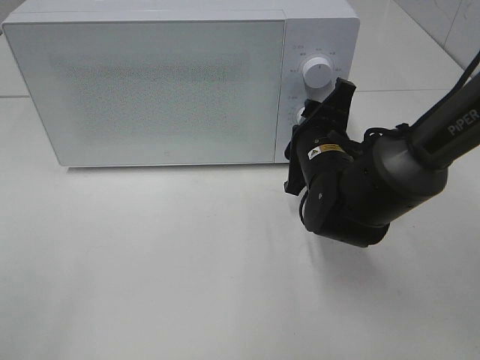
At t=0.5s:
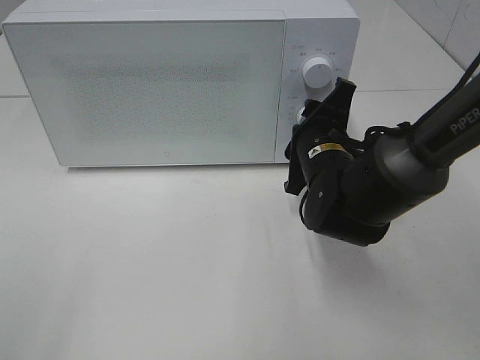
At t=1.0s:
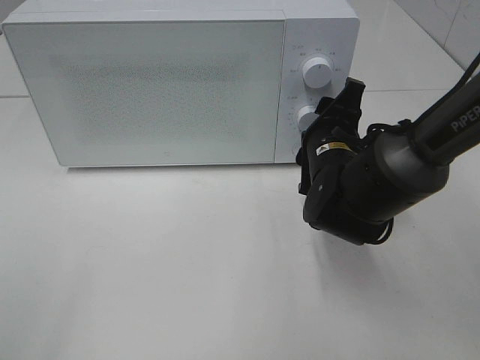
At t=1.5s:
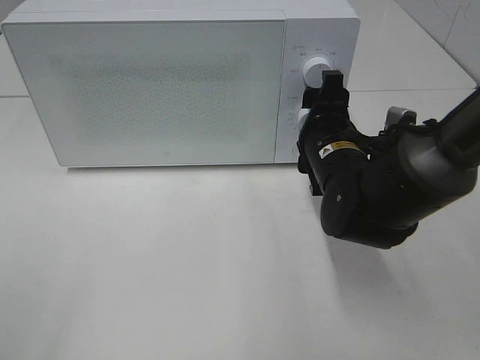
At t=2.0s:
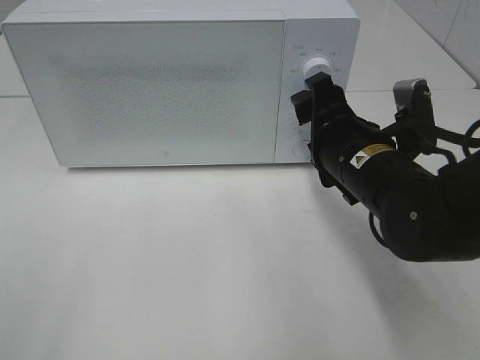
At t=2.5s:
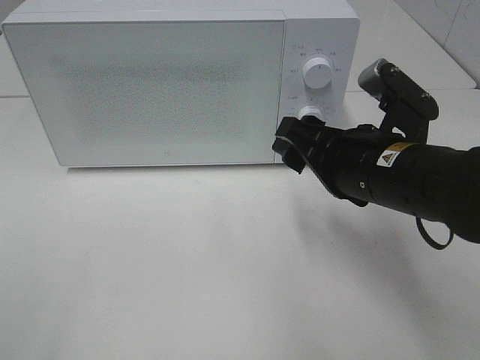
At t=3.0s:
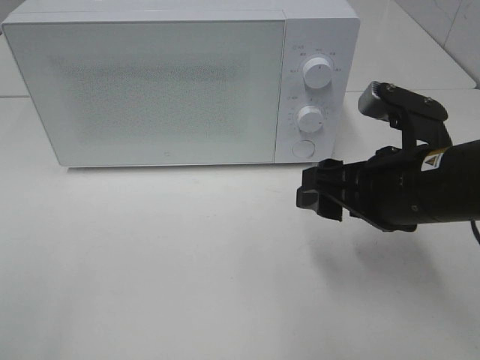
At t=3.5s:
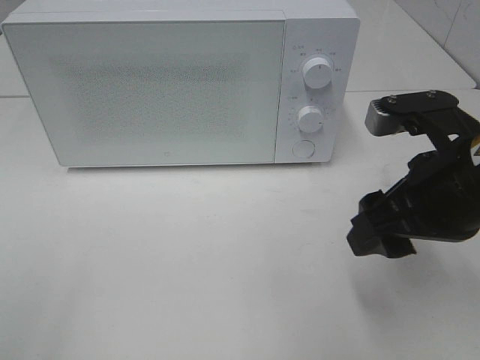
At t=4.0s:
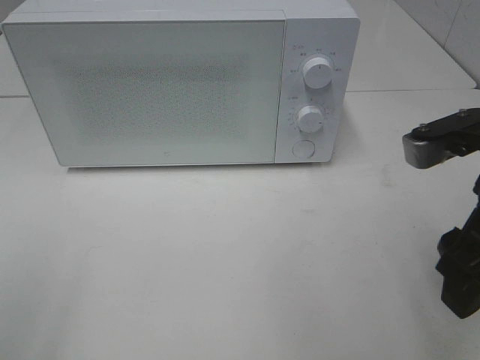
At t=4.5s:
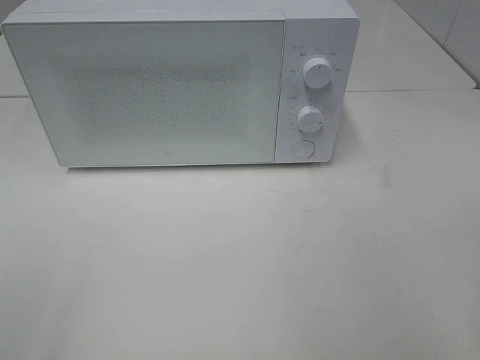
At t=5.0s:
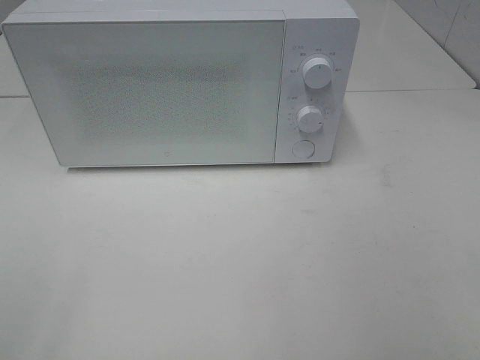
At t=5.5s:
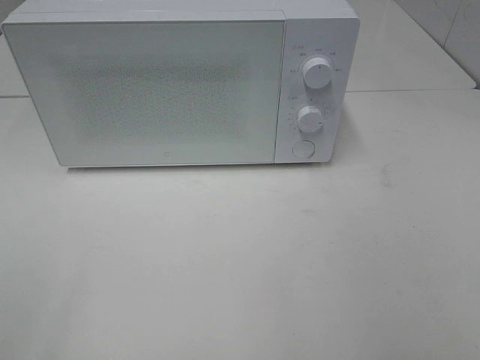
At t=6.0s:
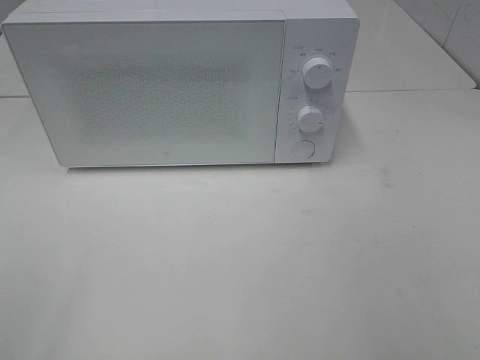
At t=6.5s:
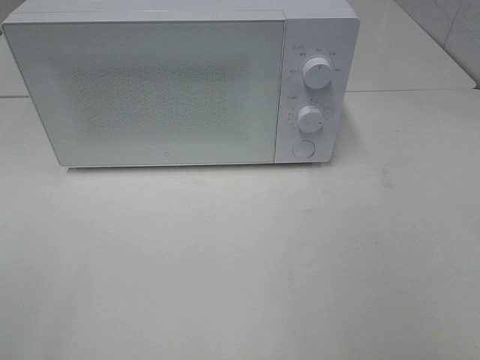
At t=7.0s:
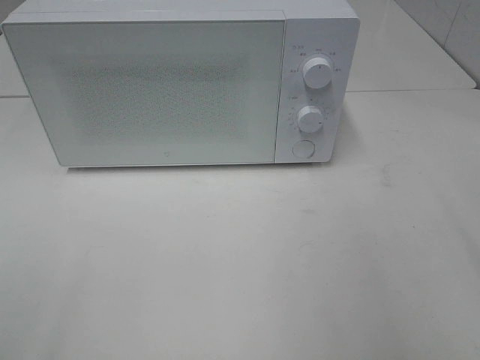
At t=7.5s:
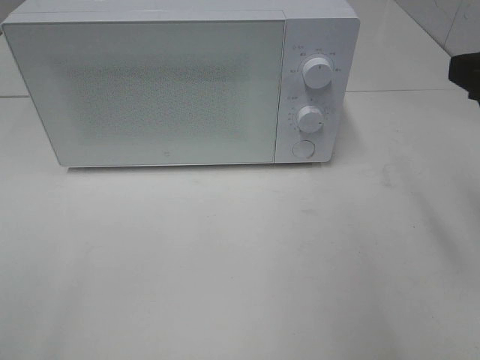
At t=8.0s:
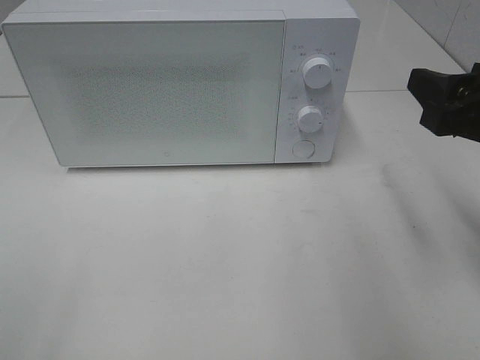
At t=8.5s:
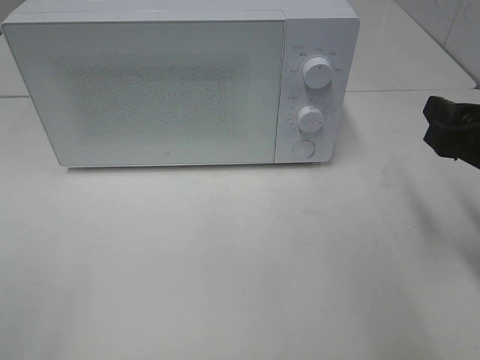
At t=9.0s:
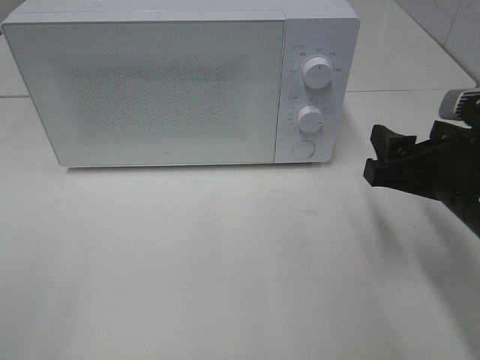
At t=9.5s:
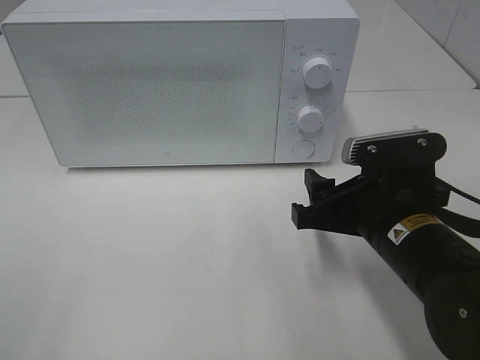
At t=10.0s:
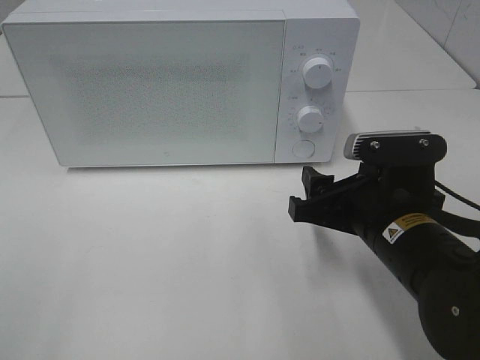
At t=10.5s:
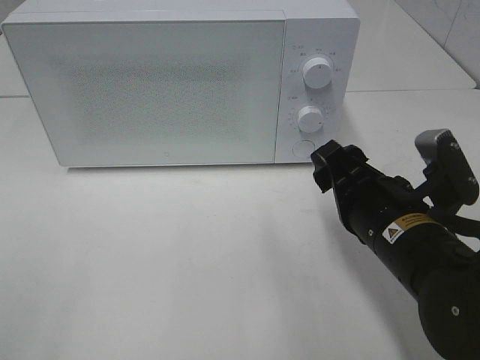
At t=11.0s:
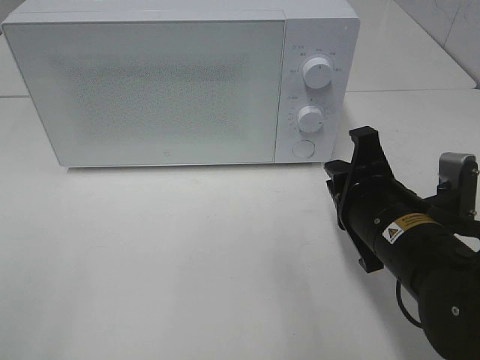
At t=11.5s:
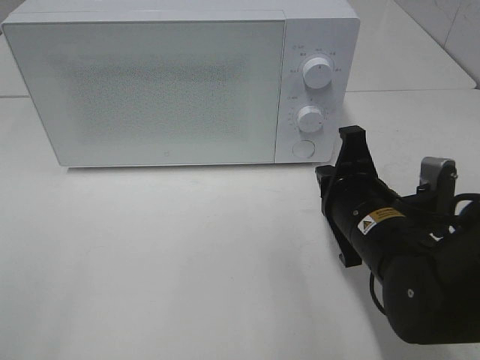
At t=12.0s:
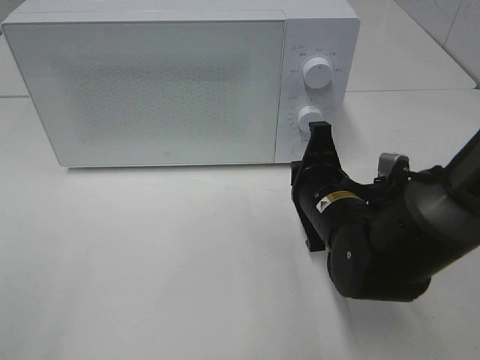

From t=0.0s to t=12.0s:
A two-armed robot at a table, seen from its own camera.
Task of the whole recording: Heat the burger.
From t=0.0s to t=2.0s: The right gripper heads backward, covering some 5 cm.
From t=2.0s to t=4.0s: The right gripper goes about 15 cm backward, upward and to the right.
From t=4.0s to t=6.0s: The right gripper is displaced backward and to the right by roughly 20 cm.
From t=6.0s to t=8.0s: The right gripper moves forward, roughly 20 cm.
From t=8.0s to t=10.0s: The right gripper moves downward and to the left, some 15 cm.
From t=10.0s to t=12.0s: The right gripper goes roughly 5 cm forward, and closes.

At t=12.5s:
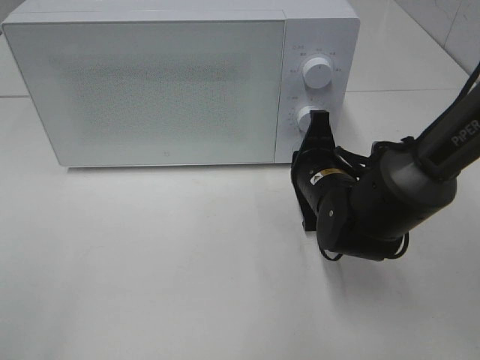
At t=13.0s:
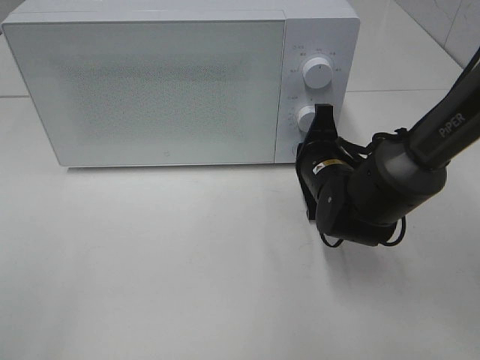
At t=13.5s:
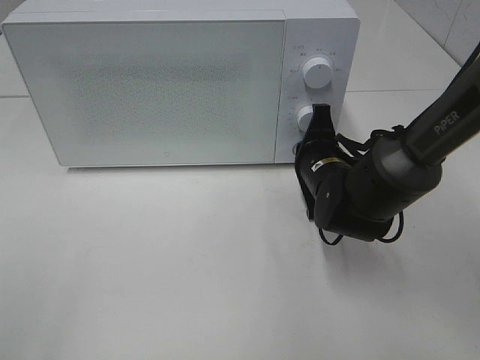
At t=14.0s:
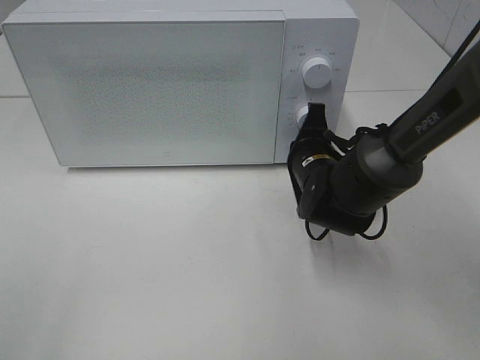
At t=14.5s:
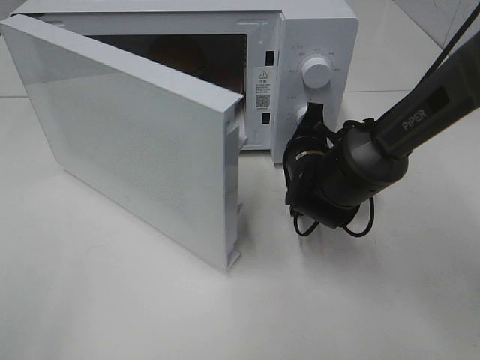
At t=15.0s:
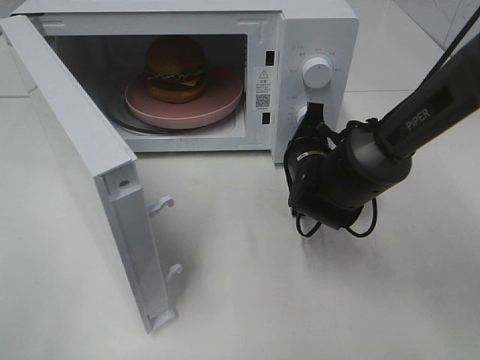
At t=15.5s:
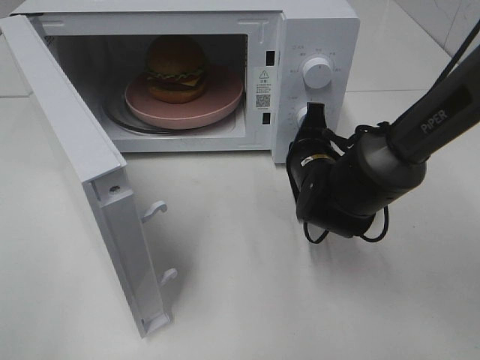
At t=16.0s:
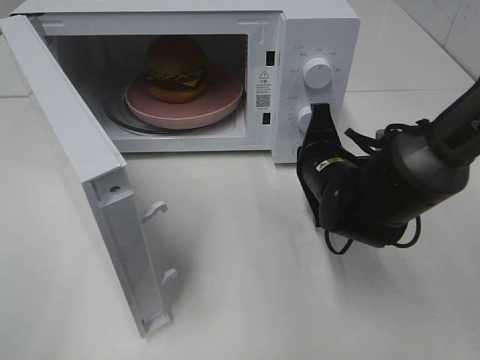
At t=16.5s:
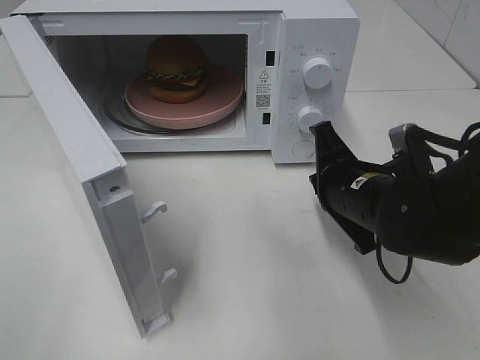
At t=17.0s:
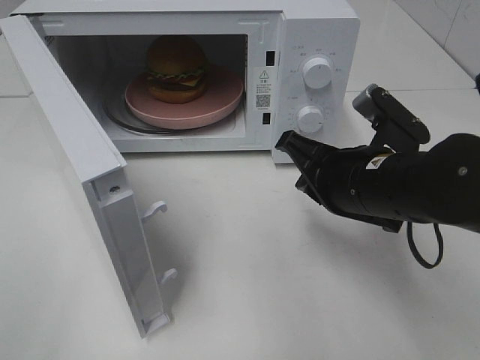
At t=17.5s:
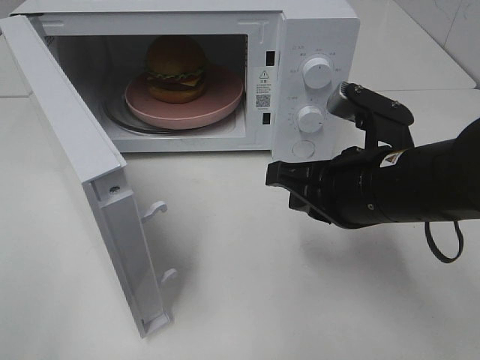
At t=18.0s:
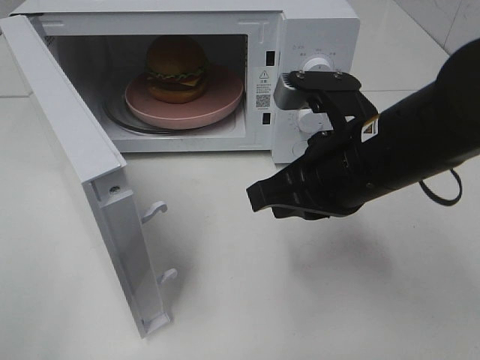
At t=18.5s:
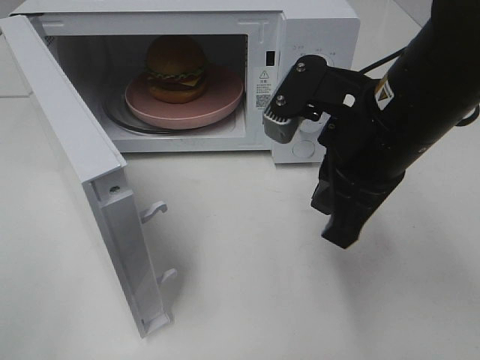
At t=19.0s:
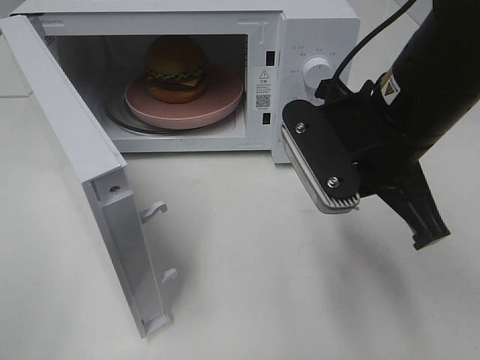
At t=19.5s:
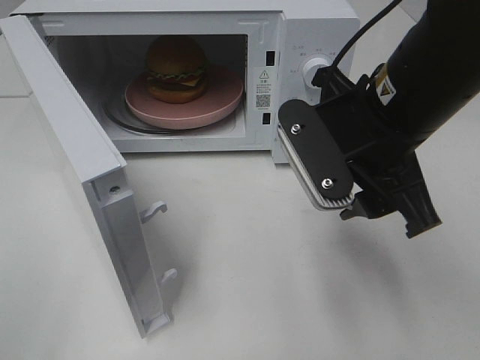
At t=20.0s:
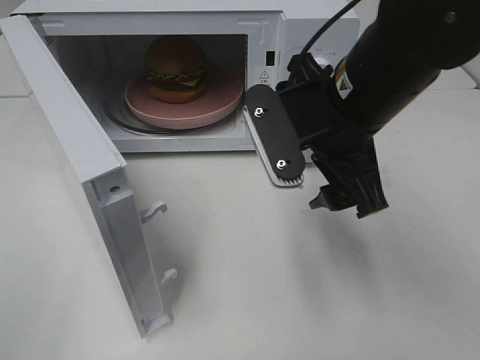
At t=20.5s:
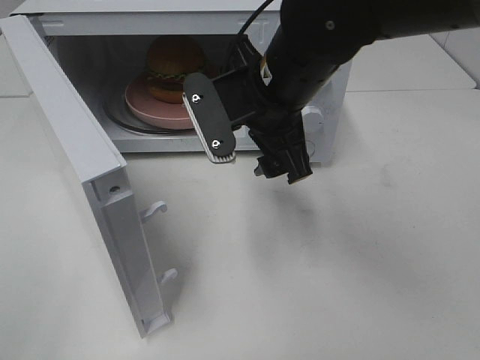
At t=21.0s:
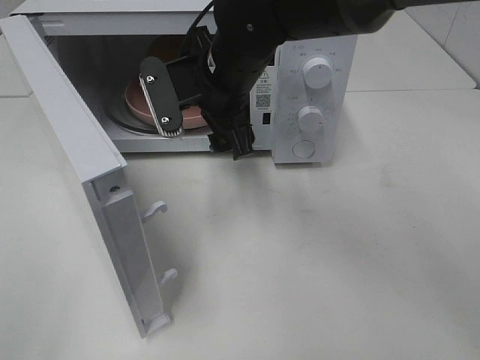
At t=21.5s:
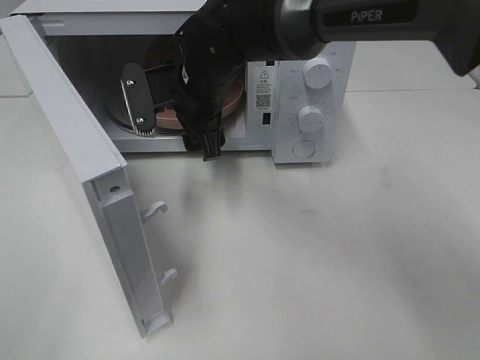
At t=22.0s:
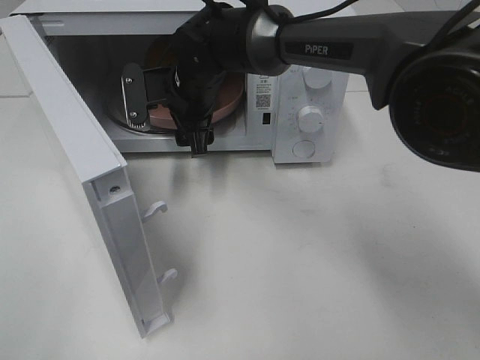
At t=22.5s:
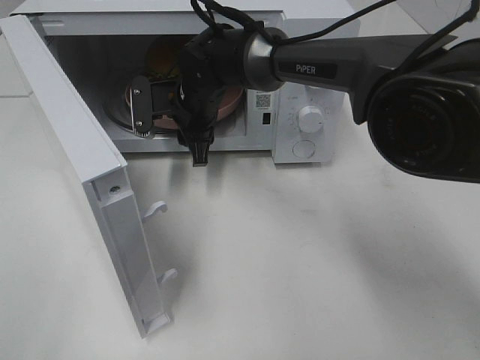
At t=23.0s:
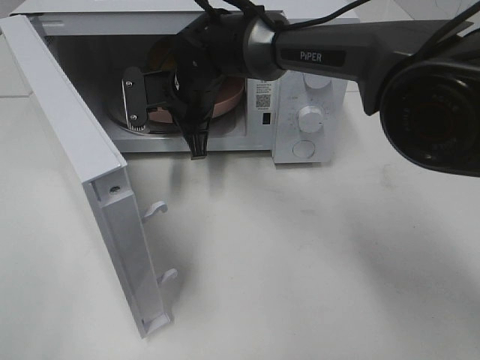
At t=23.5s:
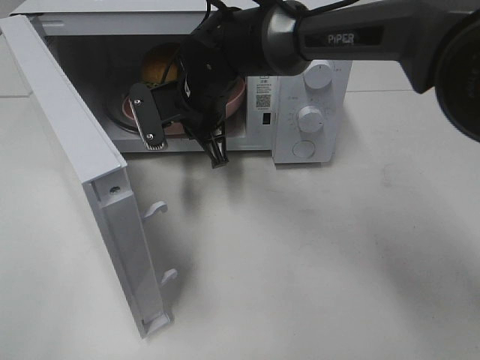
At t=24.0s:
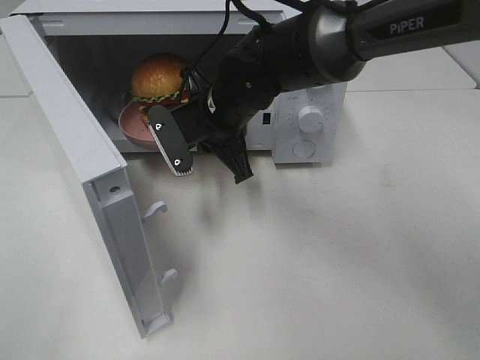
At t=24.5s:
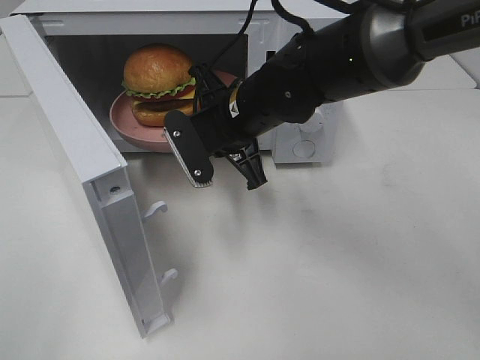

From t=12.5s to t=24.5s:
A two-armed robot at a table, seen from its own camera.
Task of the whole recording: Heat the burger.
Step, from t=12.5s to t=16.0s: Right hand: press the switch.
Step, from t=16.5s to t=22.5s: Right hand: grab the plate with the hamburger.
From t=14.5s to t=16.5s: The right gripper heads backward, covering roughly 10 cm.
From t=16.5s to t=18.5s: The right gripper goes about 10 cm upward.
From t=18.5s to t=20.5s: The right gripper heads forward and to the left, covering approximately 10 cm, and opens.
From t=20.5s to t=22.5s: The right gripper goes roughly 20 cm forward, downward and to the left, and closes its fingers.
From t=22.5s to t=24.5s: The right gripper travels backward and to the right by about 10 cm, and closes up.

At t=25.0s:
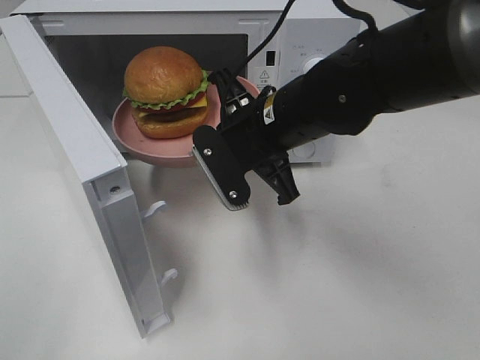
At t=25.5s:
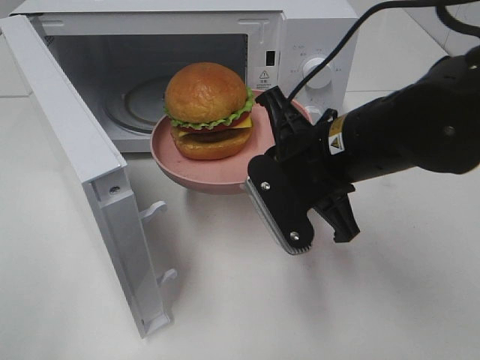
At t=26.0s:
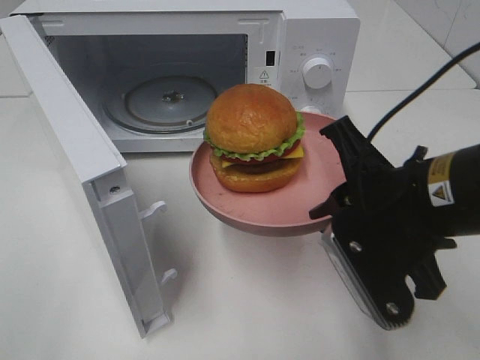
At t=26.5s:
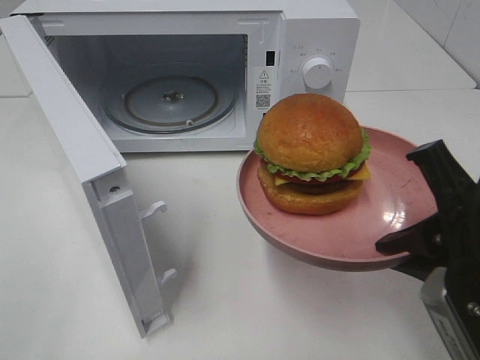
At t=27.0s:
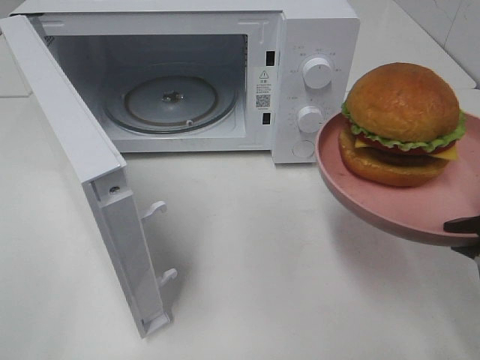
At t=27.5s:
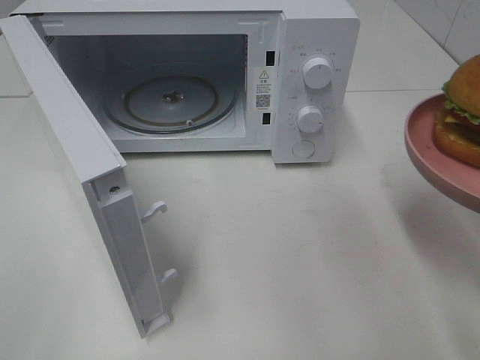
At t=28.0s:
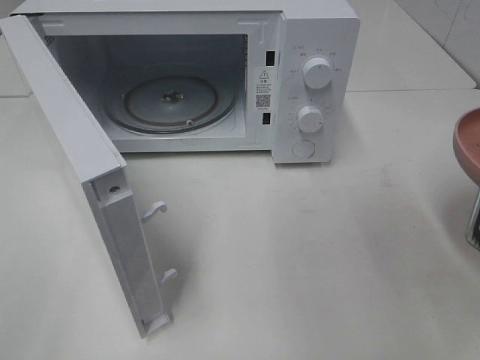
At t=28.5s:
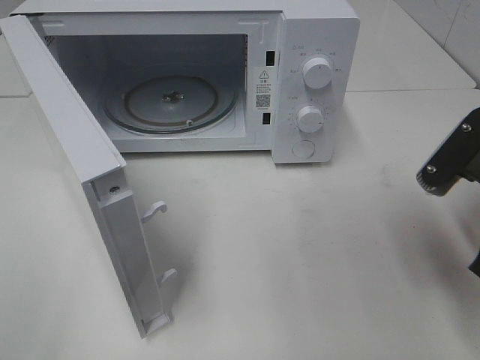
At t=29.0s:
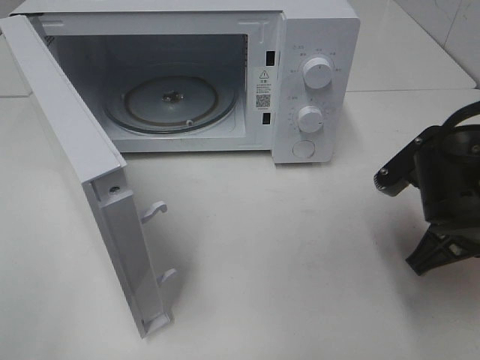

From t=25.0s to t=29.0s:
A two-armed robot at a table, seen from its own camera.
Task of the whole recording: Heat the burger.
From t=25.0s to t=27.0s: The right gripper shifts approximately 25 cm backward and to the right.
From t=27.0s to t=29.0s: The right gripper travels forward and downward by roughly 15 cm.
